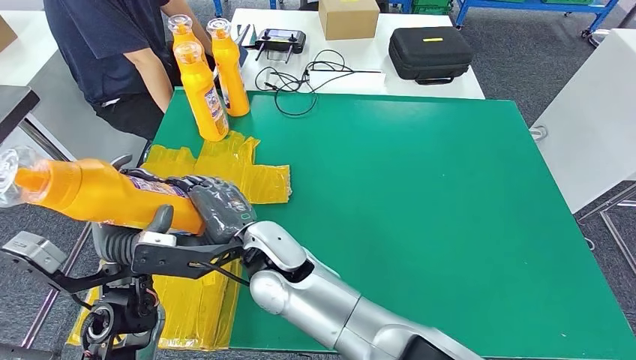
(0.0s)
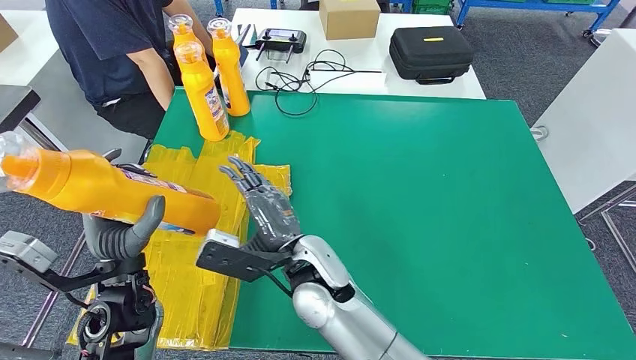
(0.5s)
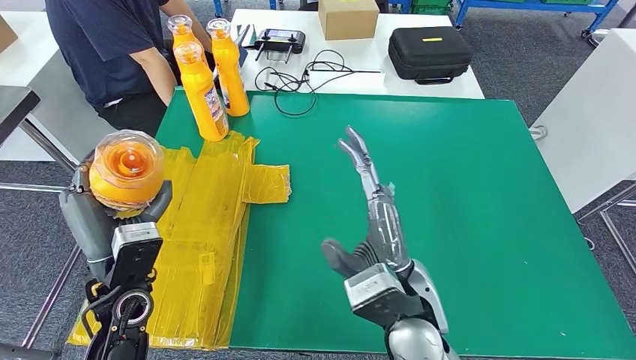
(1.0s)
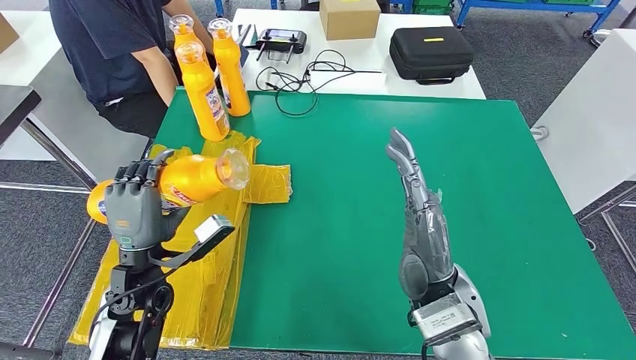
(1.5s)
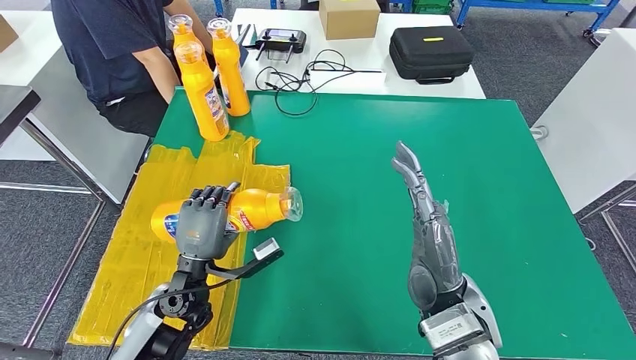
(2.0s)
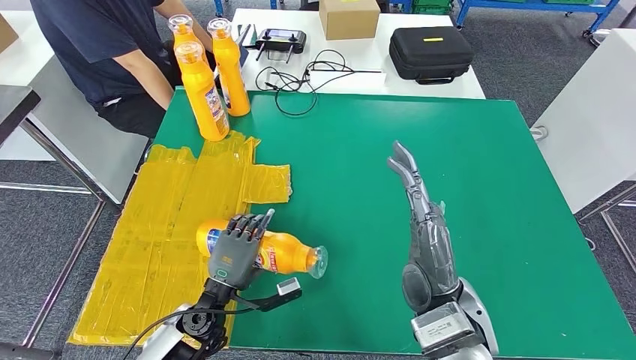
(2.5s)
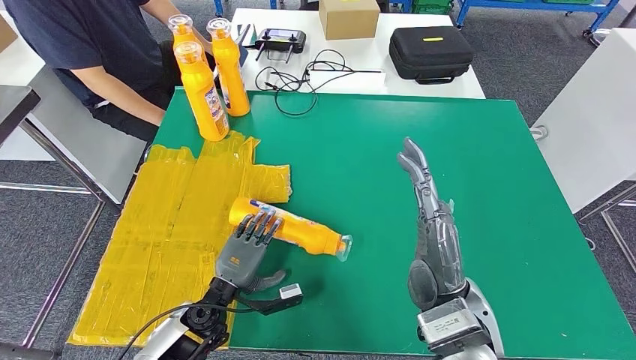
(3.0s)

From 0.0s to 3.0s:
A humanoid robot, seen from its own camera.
Step, from 0.0s to 3.0s: Flip the bottle to face forward.

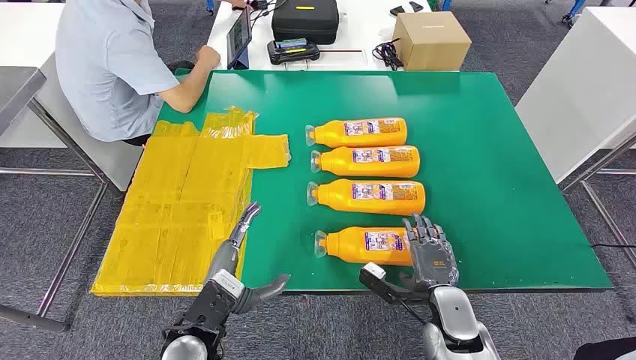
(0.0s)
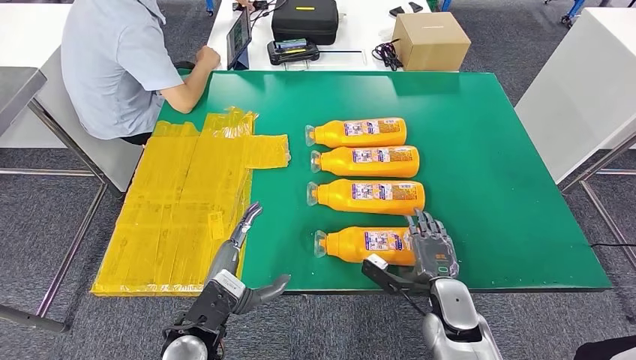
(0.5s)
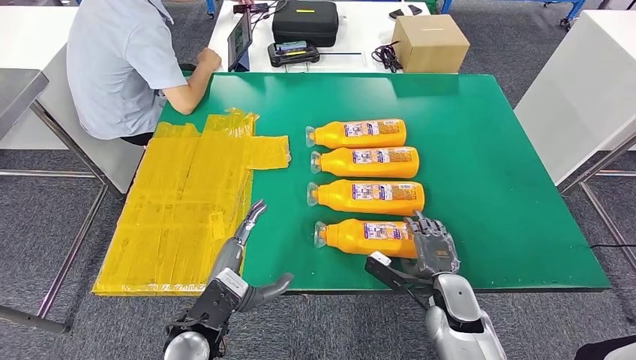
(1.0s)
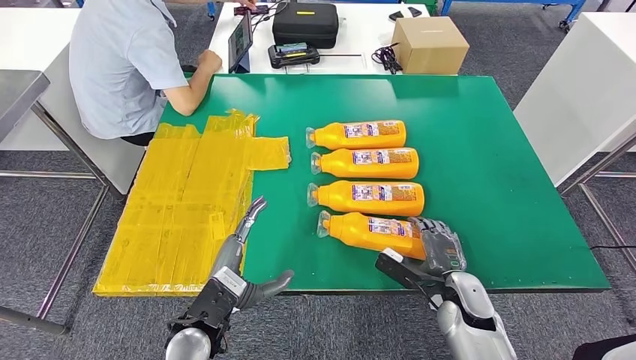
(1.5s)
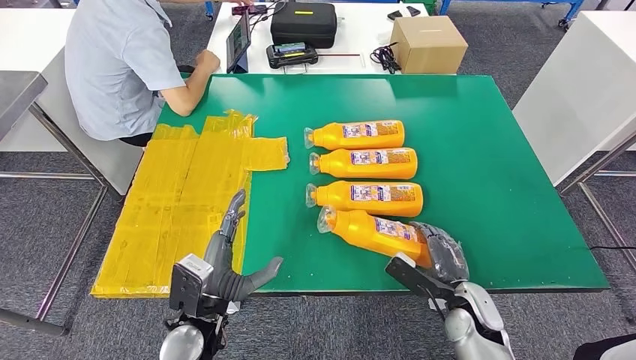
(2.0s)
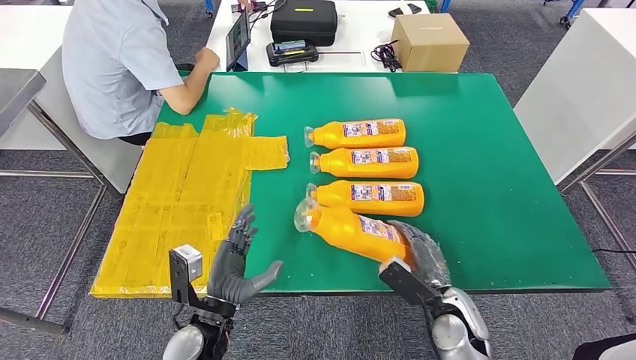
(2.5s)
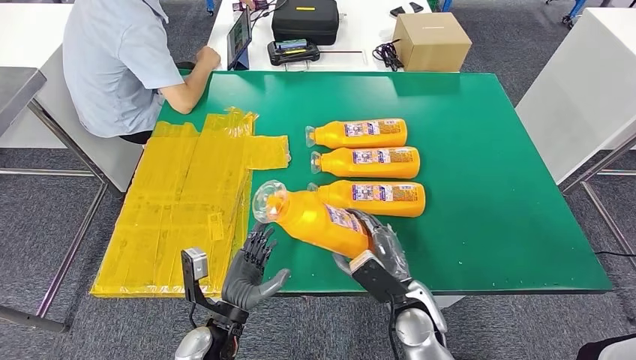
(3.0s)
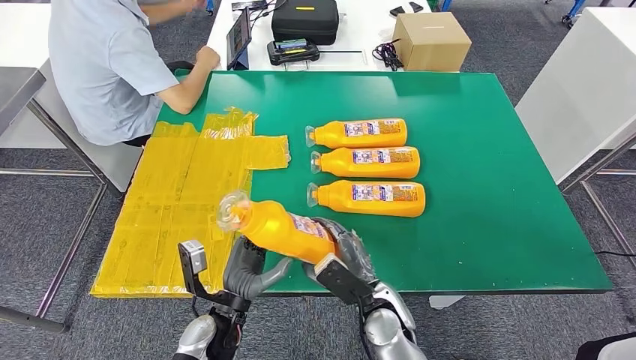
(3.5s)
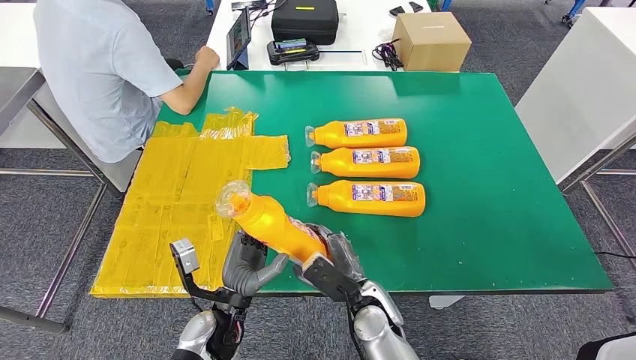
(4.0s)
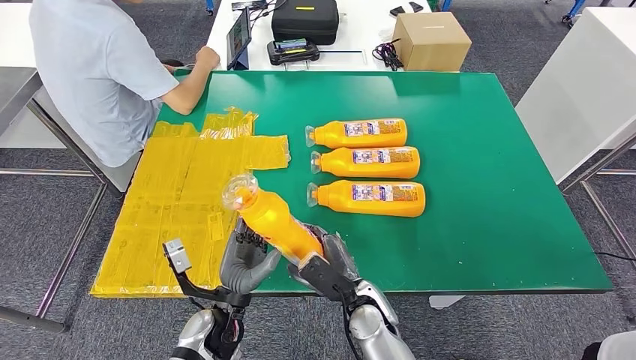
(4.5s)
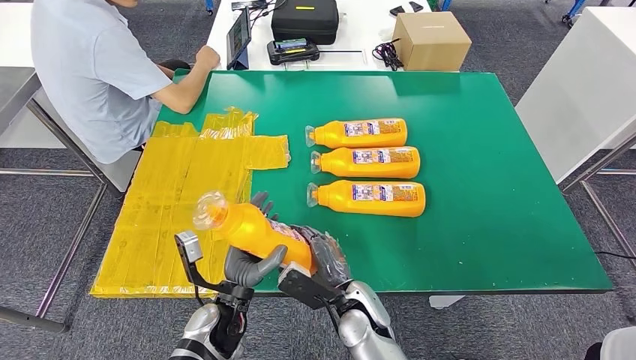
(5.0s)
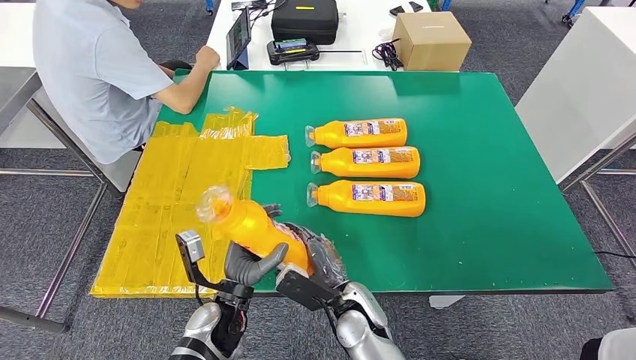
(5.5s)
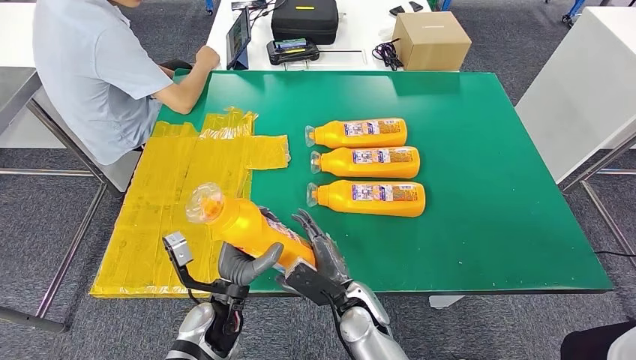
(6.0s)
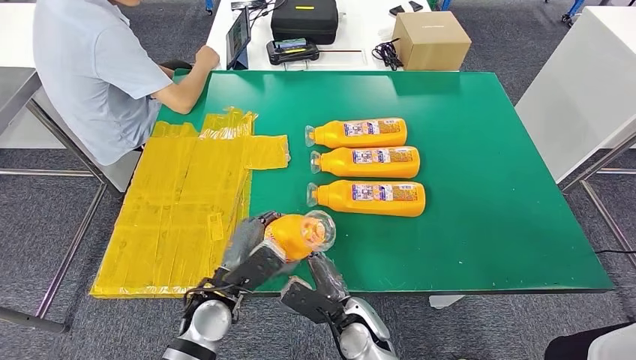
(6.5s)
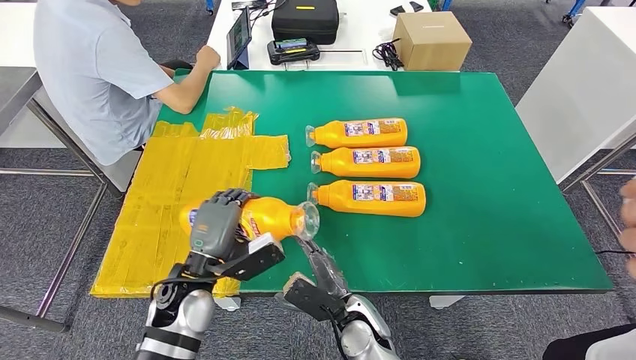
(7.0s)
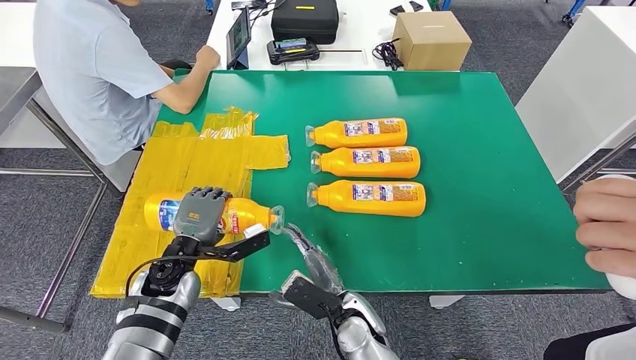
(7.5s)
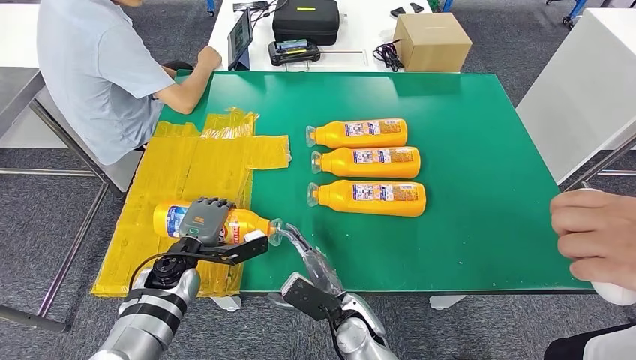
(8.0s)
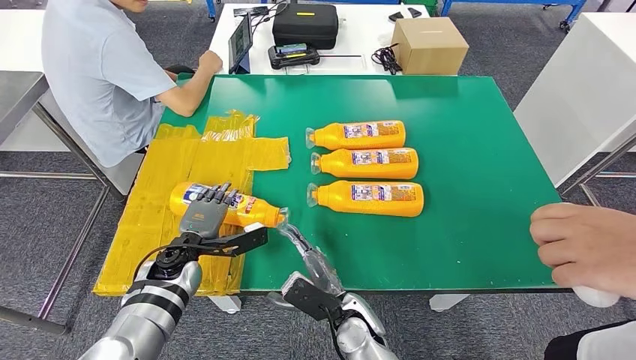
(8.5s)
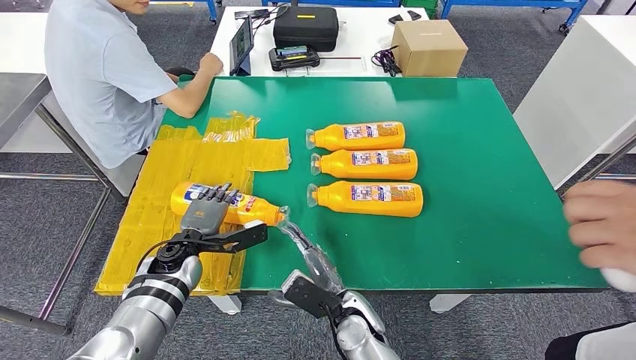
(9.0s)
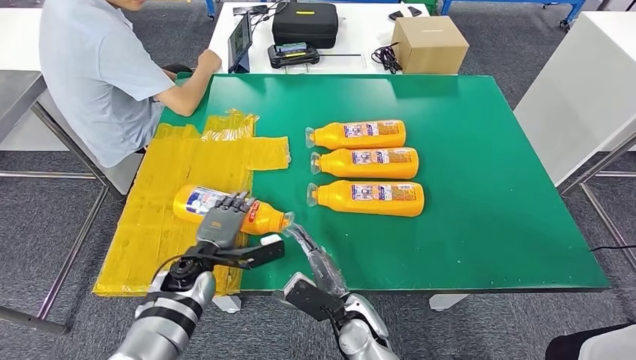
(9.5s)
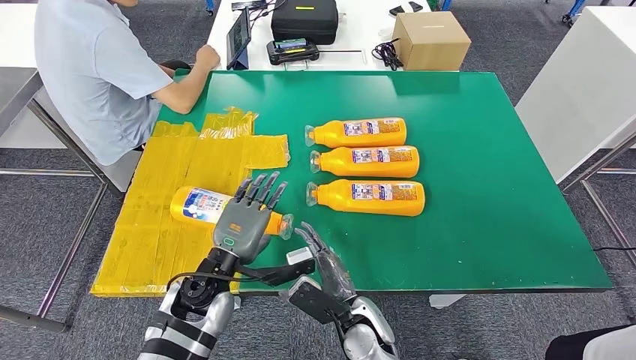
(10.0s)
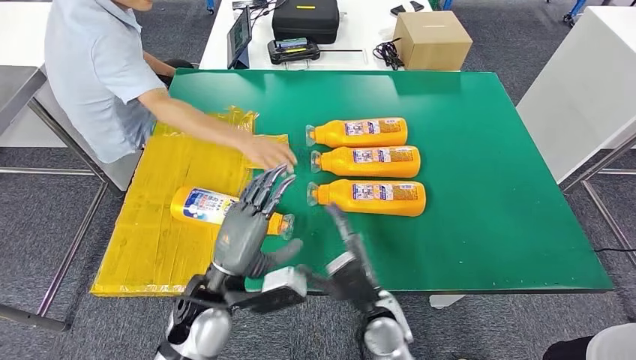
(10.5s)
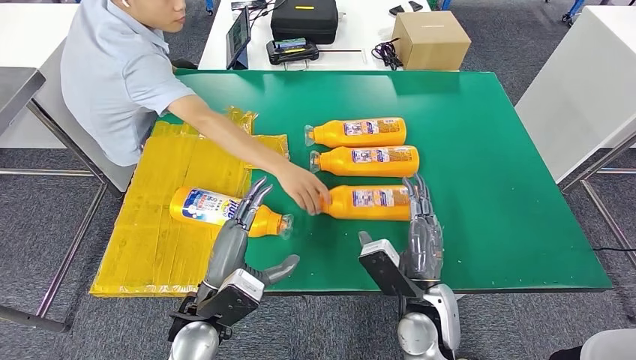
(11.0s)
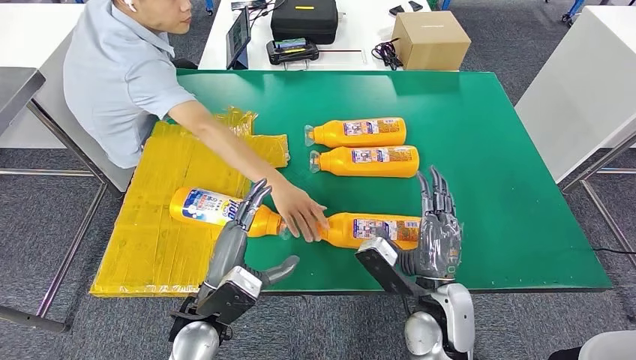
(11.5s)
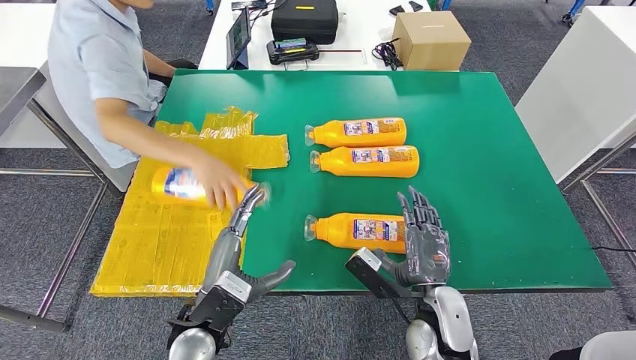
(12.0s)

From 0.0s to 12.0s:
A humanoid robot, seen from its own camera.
Step, from 0.0s to 3.5s: Take the bottle from the table.
Step, from 4.5s to 10.5s: Flip the bottle to face forward.
From 4.0s to 6.0s: The hands move only a little.
From 6.0s to 8.0s: The left hand heads to the left and forward, covering about 15 cm.
From 8.0s to 10.0s: The left hand is displaced to the right, upward and backward by roughly 10 cm.
From 10.0s to 12.0s: The right hand heads to the right and upward, covering approximately 15 cm. The left hand moves backward, roughly 5 cm.

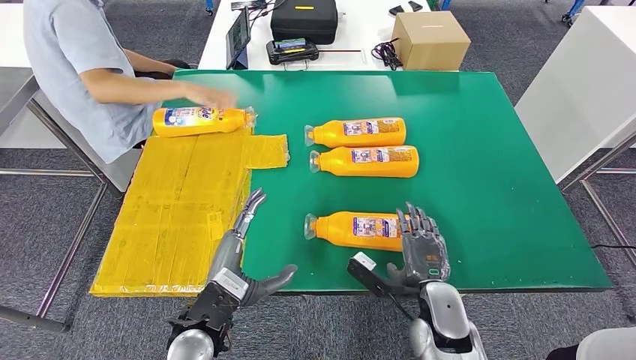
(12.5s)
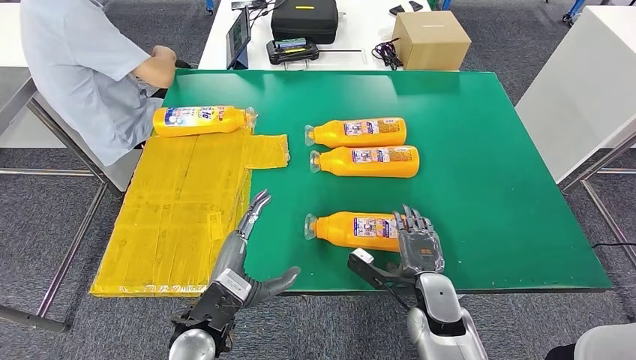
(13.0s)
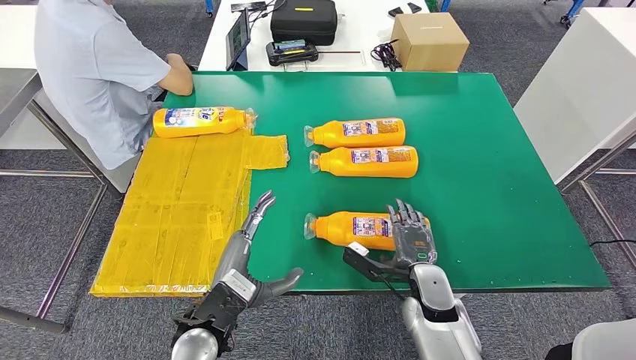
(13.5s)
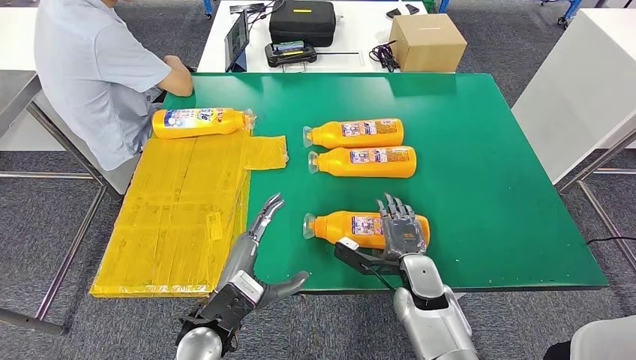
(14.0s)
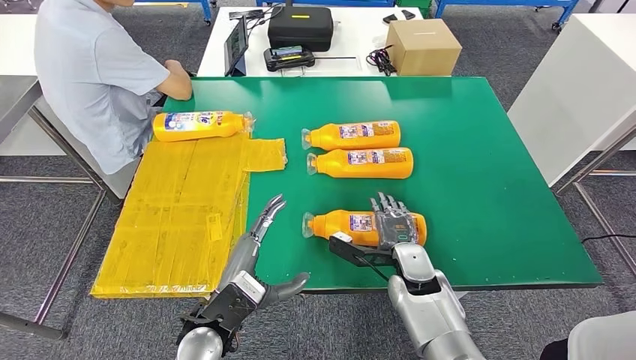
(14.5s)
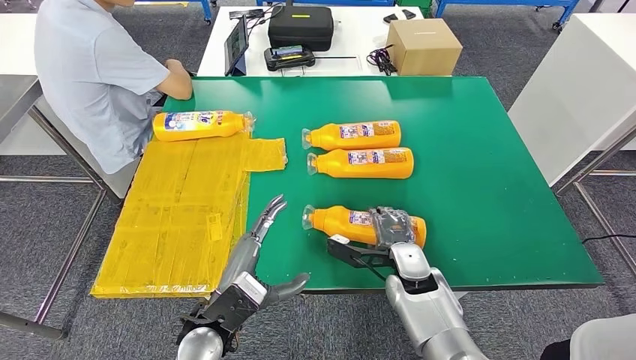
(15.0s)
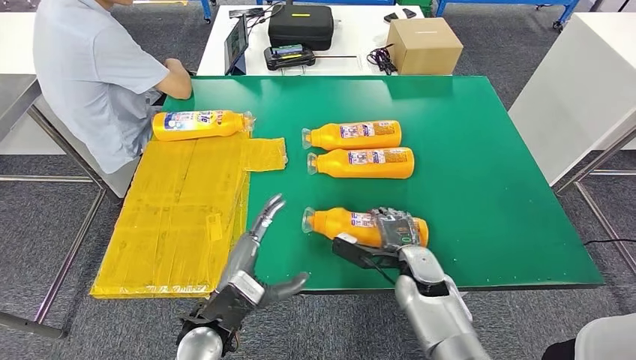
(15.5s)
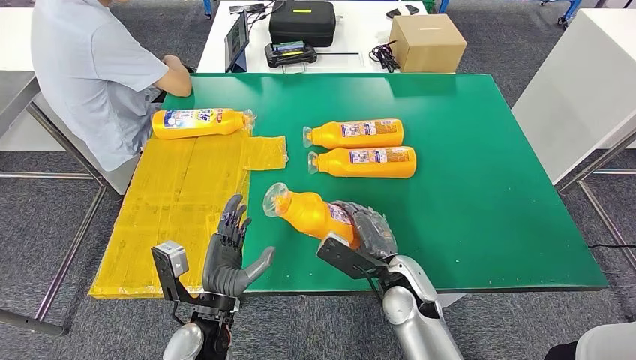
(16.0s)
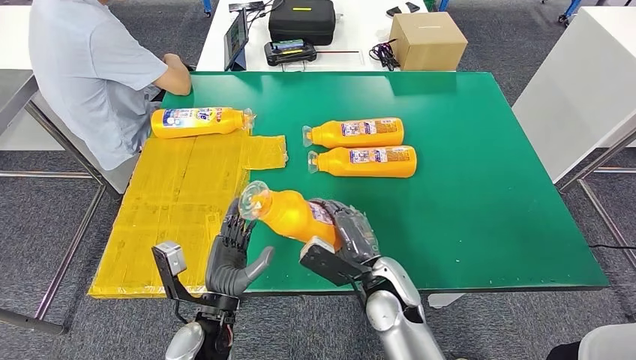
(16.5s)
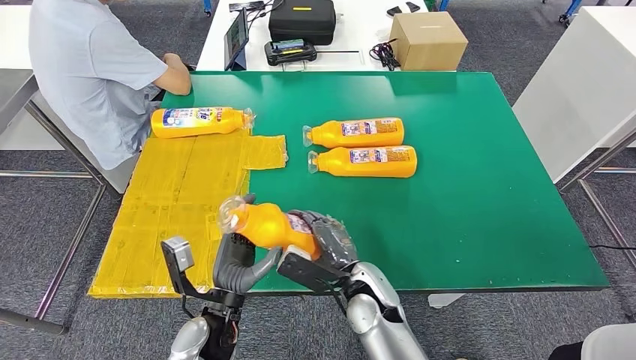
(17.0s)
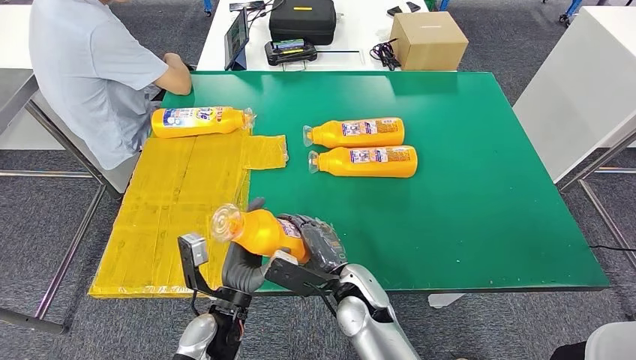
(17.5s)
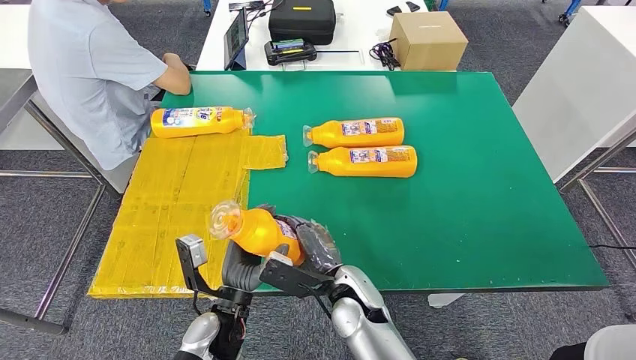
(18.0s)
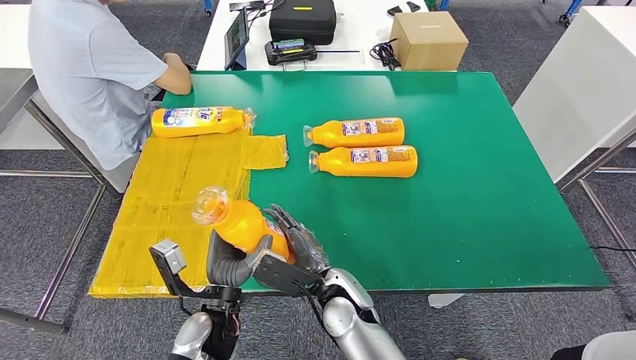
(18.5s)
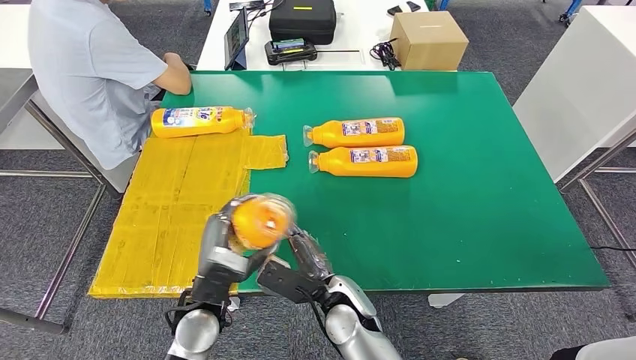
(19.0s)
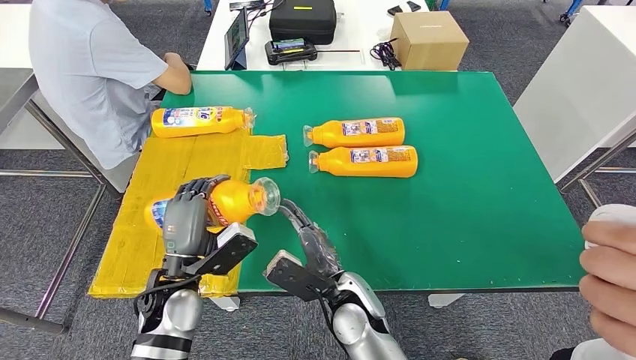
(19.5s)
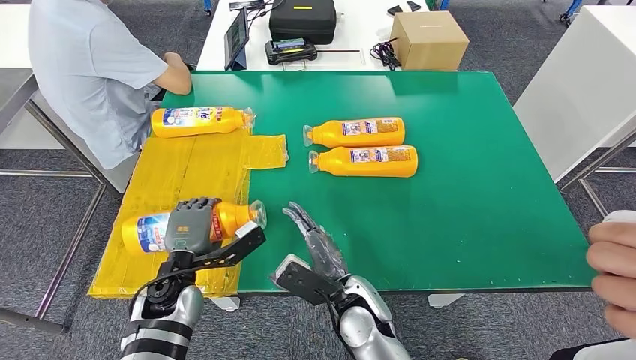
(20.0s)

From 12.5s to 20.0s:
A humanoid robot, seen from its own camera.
Step, from 13.5s to 16.5s: Pick up the bottle from the table.
From 16.5s to 18.0s: The right hand moves to the left, roughly 5 cm.
From 18.0s to 20.0s: The left hand shifts approximately 10 cm to the left and forward.
